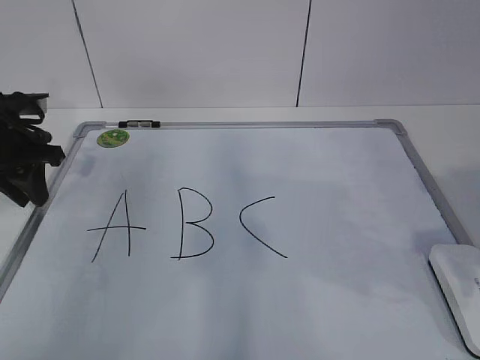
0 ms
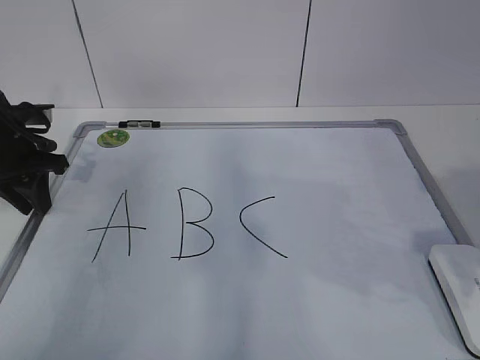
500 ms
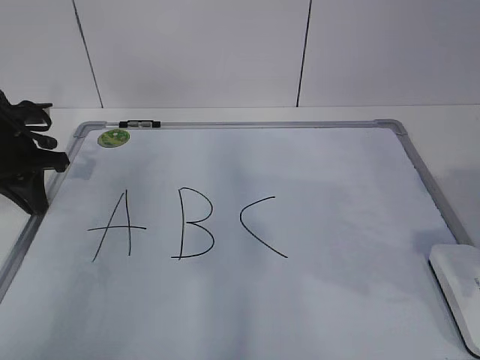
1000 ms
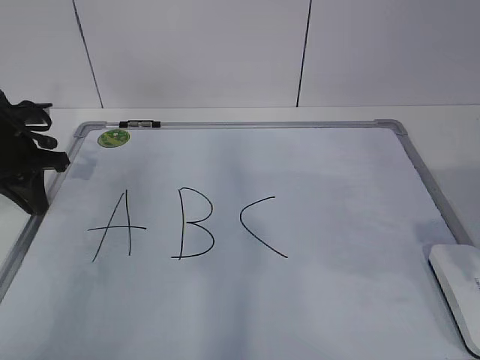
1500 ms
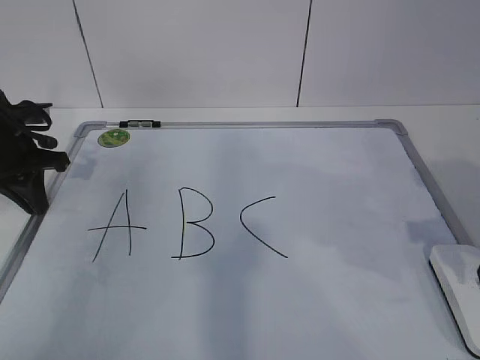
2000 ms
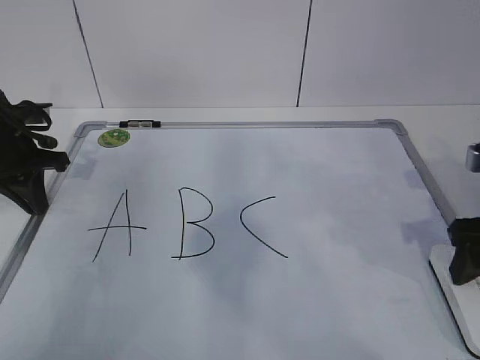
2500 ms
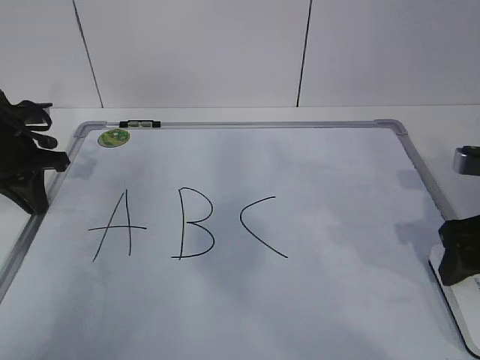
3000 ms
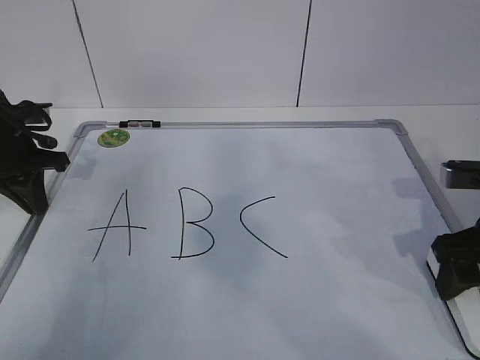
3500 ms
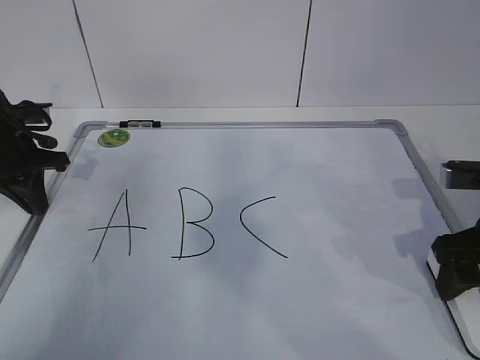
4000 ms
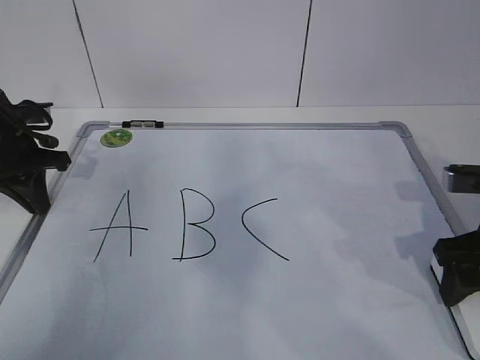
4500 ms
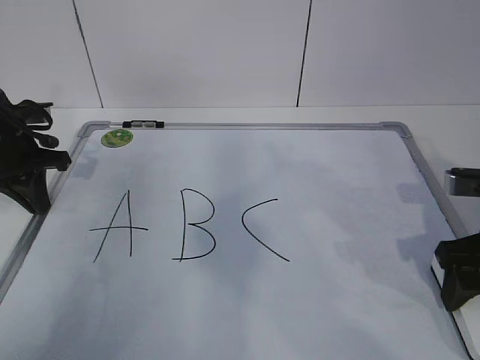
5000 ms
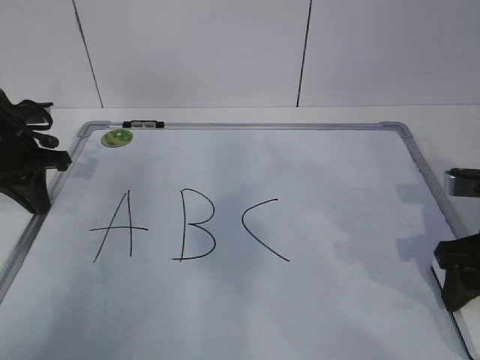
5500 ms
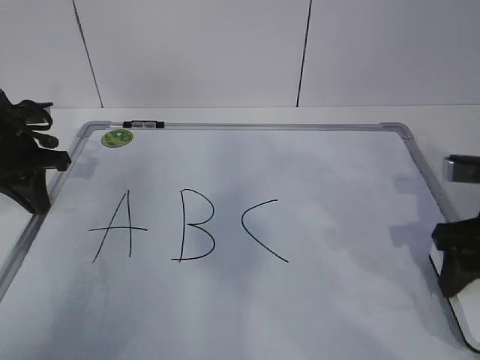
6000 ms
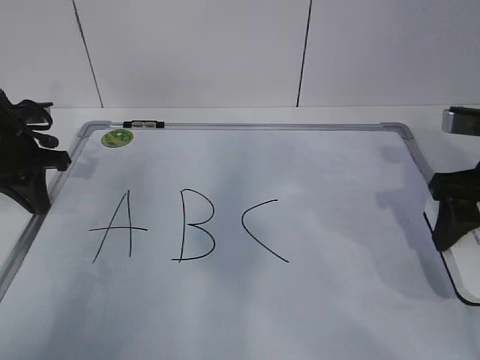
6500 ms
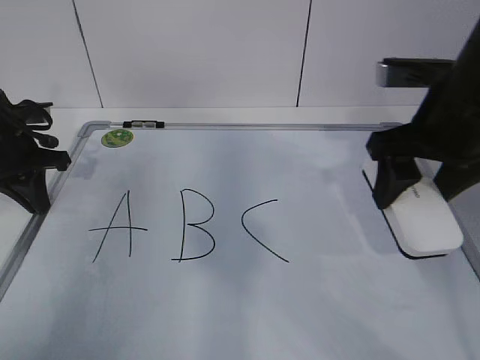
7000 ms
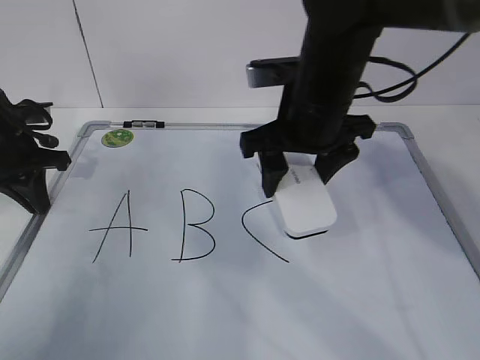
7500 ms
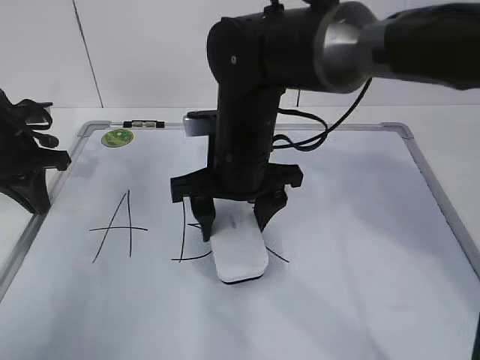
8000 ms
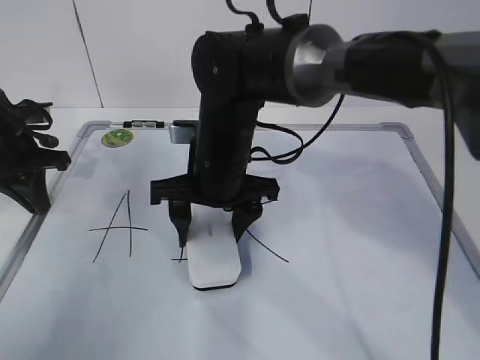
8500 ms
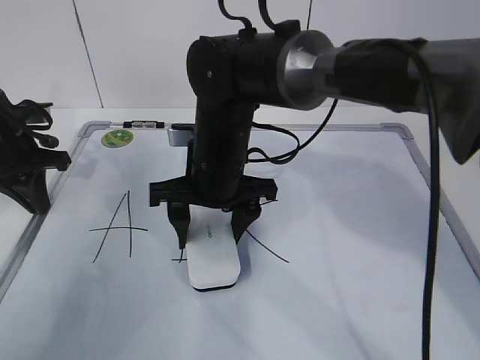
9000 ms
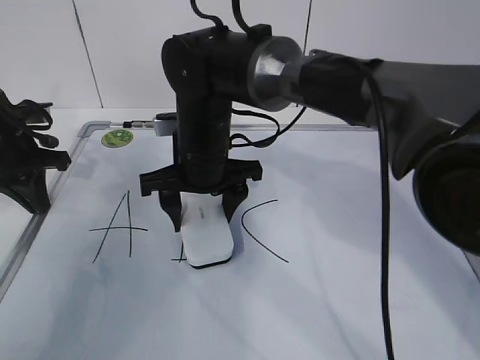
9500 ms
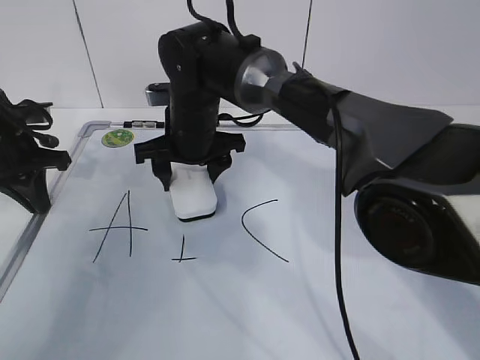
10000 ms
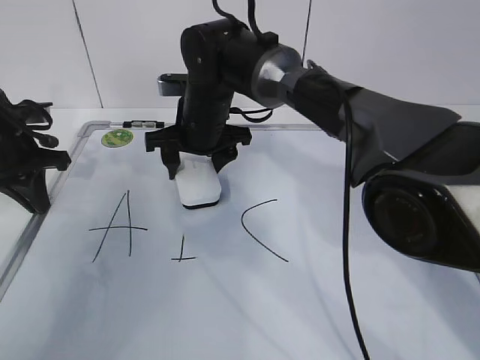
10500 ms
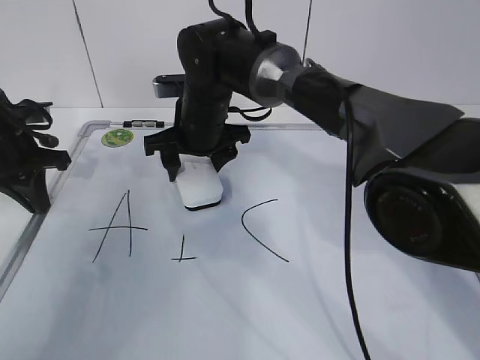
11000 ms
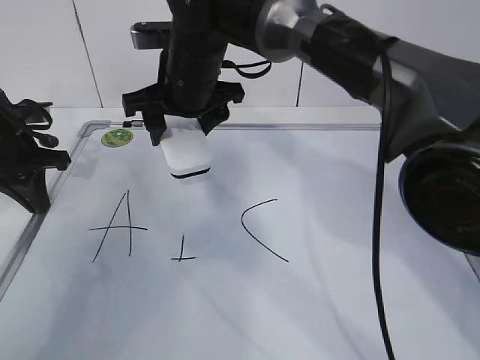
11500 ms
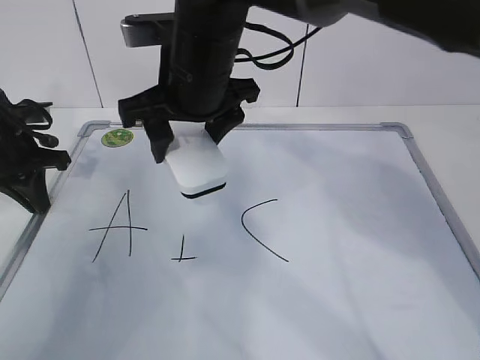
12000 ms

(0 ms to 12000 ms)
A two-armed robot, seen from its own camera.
Task of the whole recording: pick up the eraser on the blackboard and erase the letter "B".
Step, 0 ms - 4000 ms: Grab the eraser with your right hand.
0 ms - 2000 ms: The left gripper closes.
2000 ms - 4000 ms: The right gripper heads downward, covering roughly 5 cm.
4000 ms - 6000 ms: The grippers move only a little.
6000 ms - 8000 ms: The right gripper is displaced to the left by some 25 cm.
8000 ms - 10000 ms: The right gripper heads forward and to the left, covering roughly 10 cm.
10000 ms - 12000 ms: The right gripper goes roughly 15 cm upward and backward.

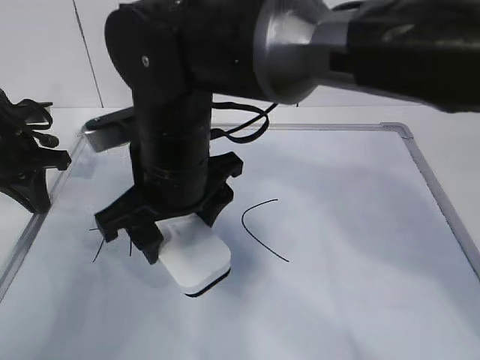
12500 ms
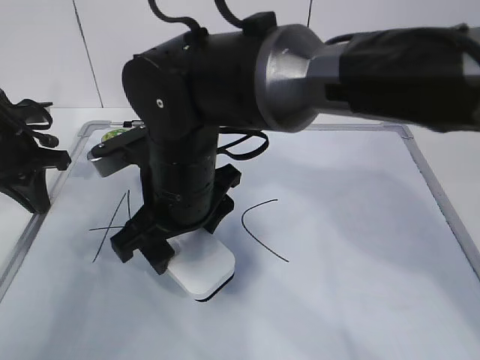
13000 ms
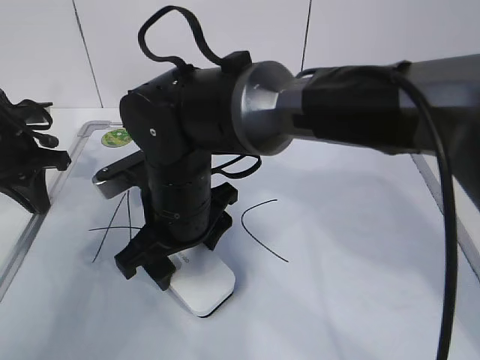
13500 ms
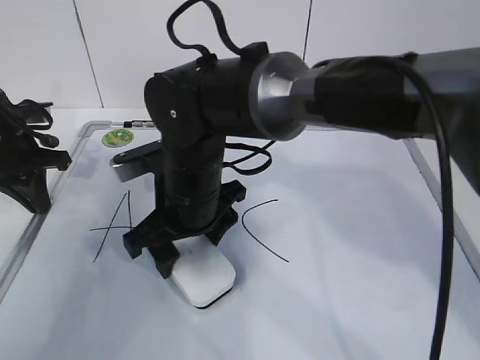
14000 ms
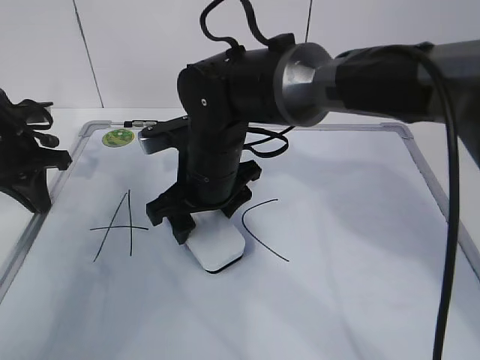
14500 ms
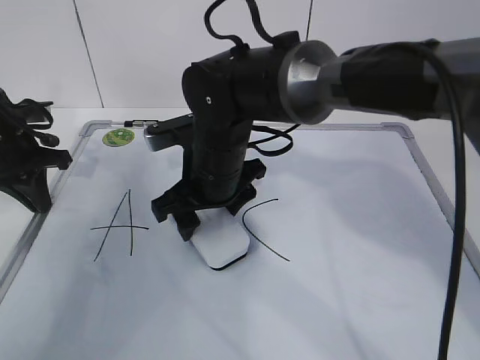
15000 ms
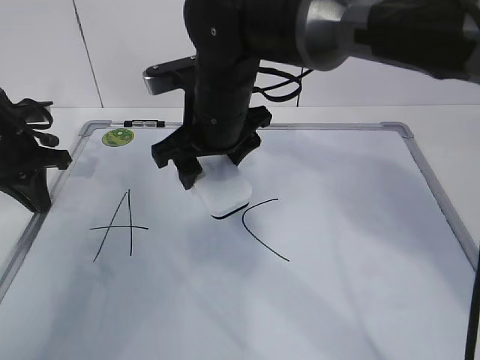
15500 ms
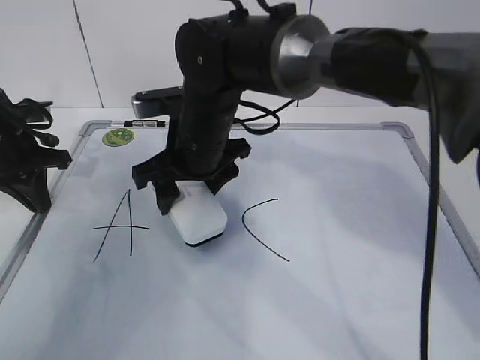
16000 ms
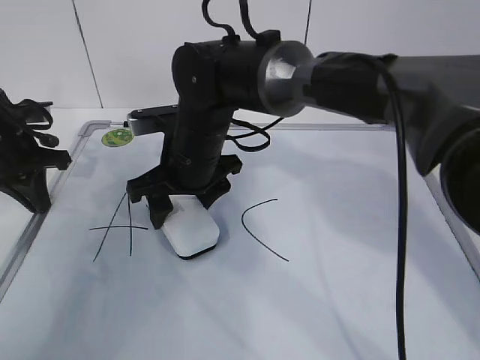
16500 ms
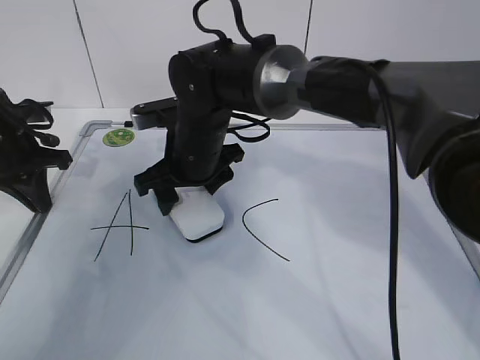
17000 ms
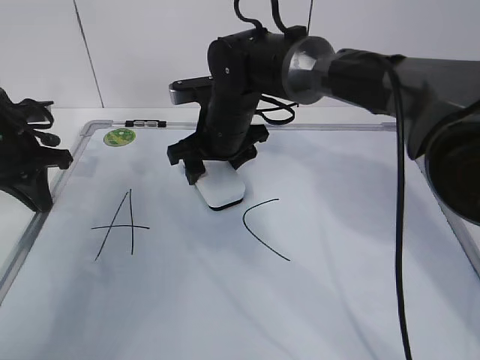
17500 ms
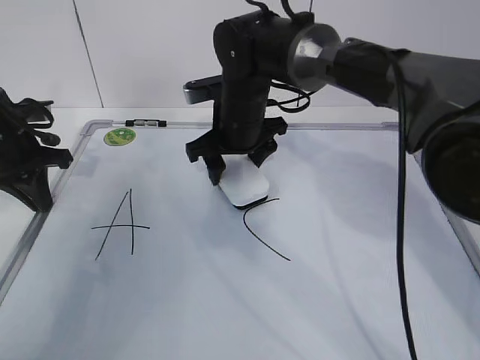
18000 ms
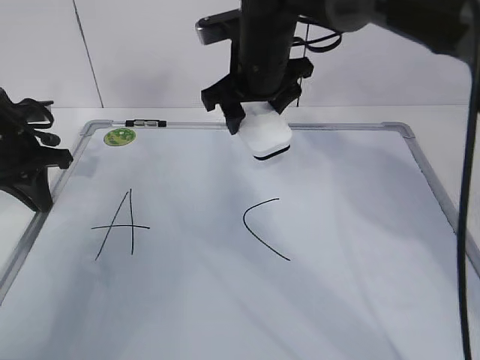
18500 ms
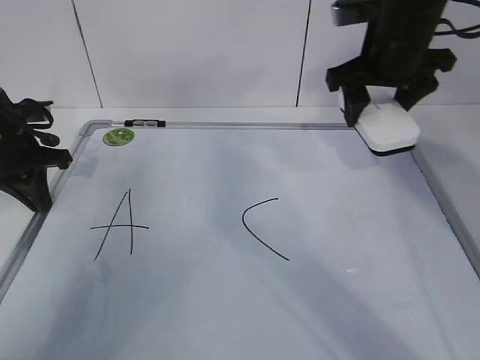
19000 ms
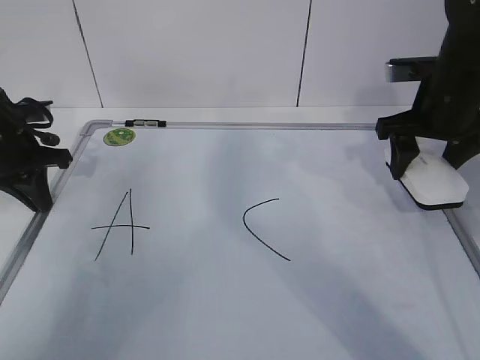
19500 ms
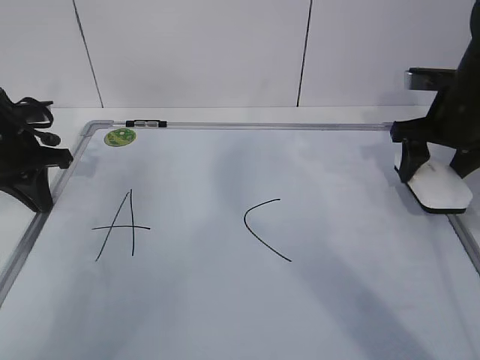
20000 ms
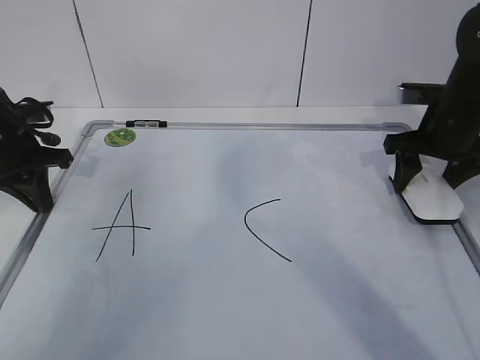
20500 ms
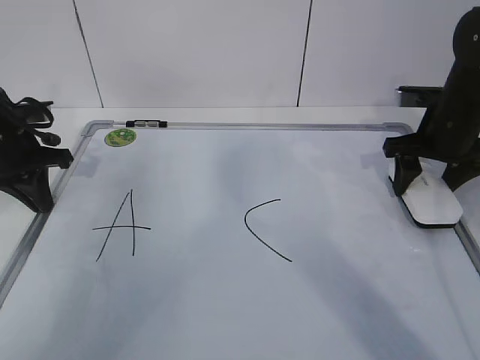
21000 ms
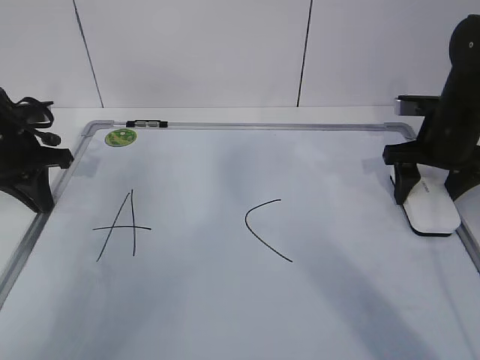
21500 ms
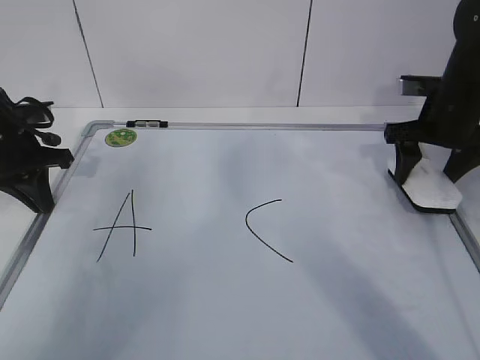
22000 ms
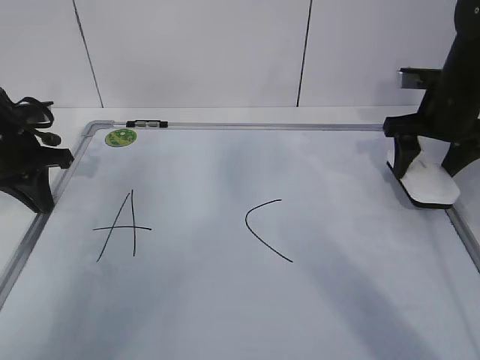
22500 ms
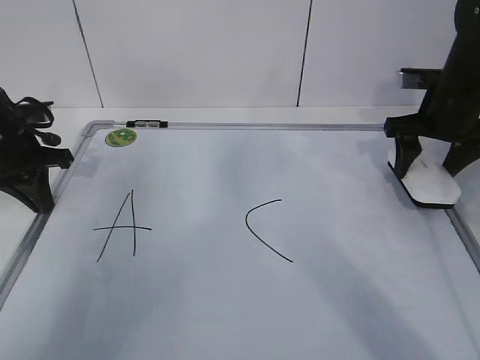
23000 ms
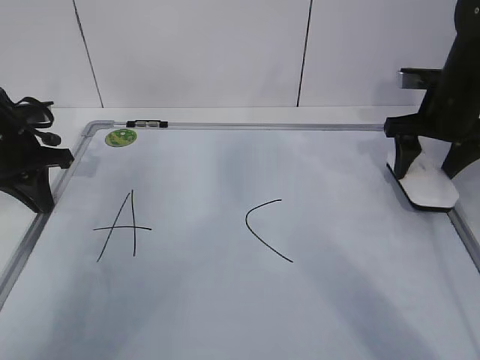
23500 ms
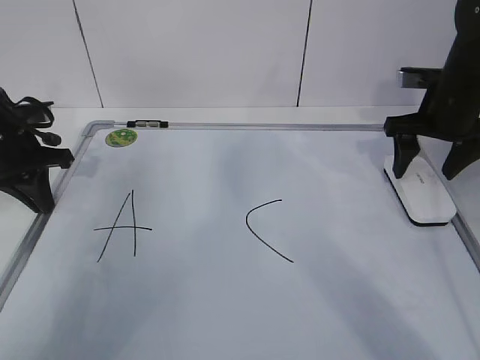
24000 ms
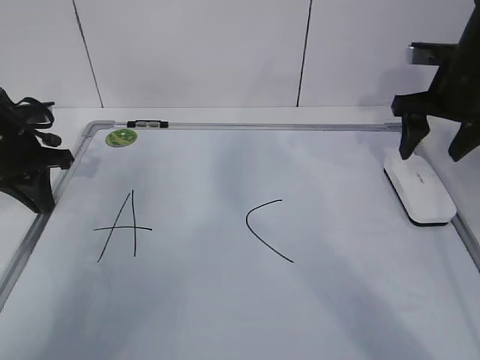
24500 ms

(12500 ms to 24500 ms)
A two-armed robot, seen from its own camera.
Task of the whole recording: pick up the eraser on the blackboard and erase the letter "B".
Step, 14500 ms - 18500 ms: Put down the eraser with your right hand.
12500 ms - 14500 ms: The right gripper moves downward and forward, approximately 10 cm.
16500 ms - 18500 ms: The right gripper shifts roughly 15 cm upward, to the right and forward.
18500 ms - 20500 ms: The right gripper moves to the right, some 25 cm.
20500 ms - 24500 ms: There are only small adjustments of the grippers.

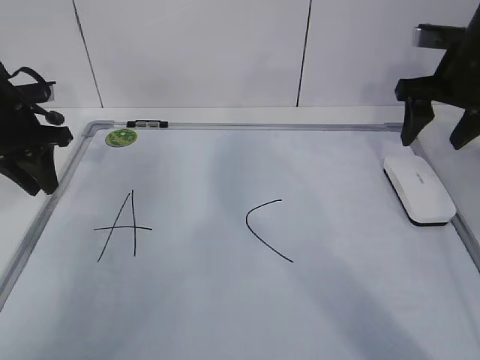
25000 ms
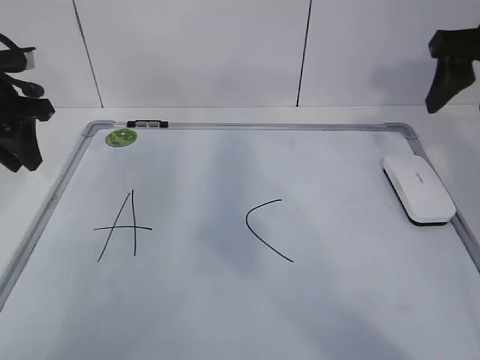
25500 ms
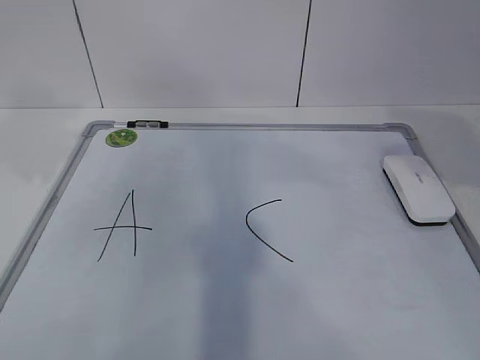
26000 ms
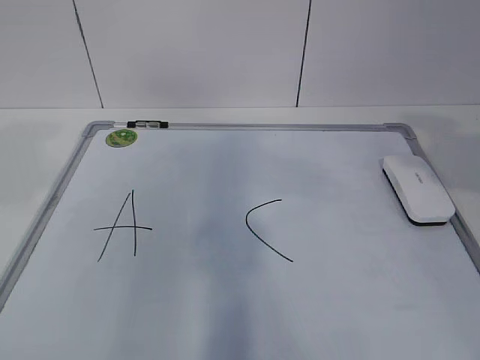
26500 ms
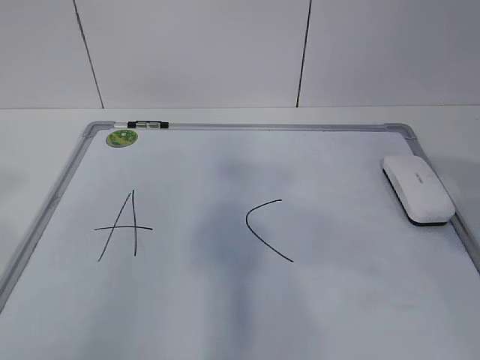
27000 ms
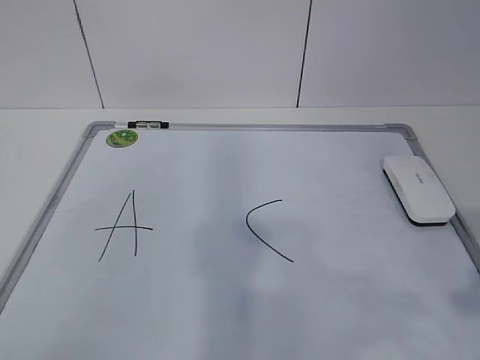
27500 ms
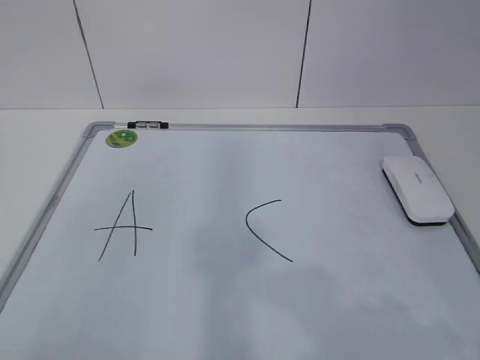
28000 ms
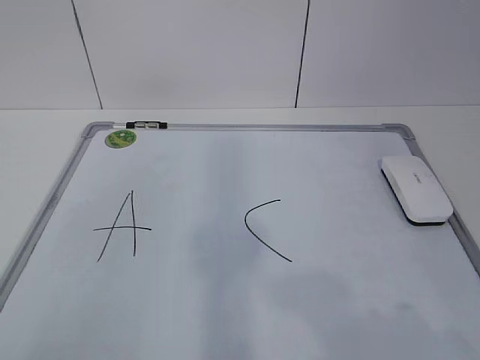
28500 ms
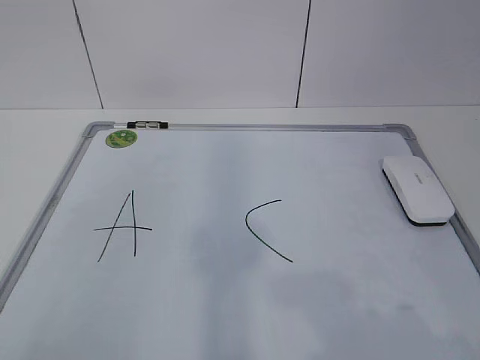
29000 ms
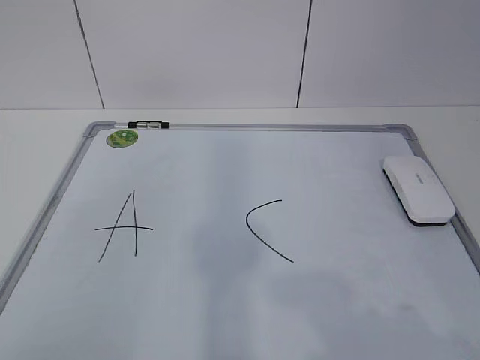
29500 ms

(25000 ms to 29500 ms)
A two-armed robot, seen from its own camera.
Task of the whole recording: pick up the eraser on the blackboard and erase the letter "B".
25000 ms - 27000 ms: The right gripper moves backward, approximately 30 cm, and closes up. The left gripper heads backward and upward, covering about 40 cm.
27000 ms - 29500 ms: Both grippers move backward and downward, approximately 10 cm.
